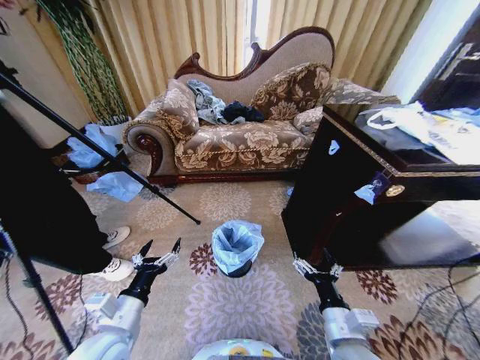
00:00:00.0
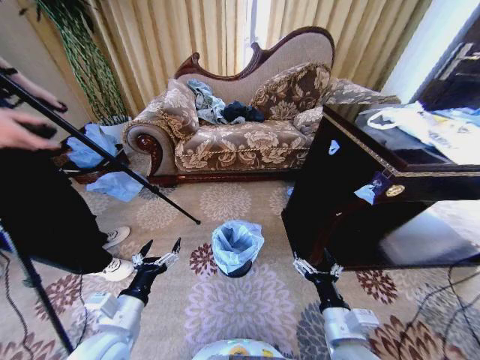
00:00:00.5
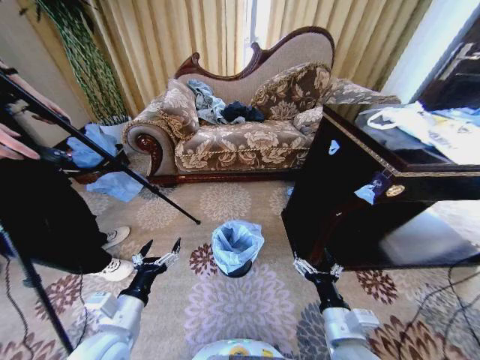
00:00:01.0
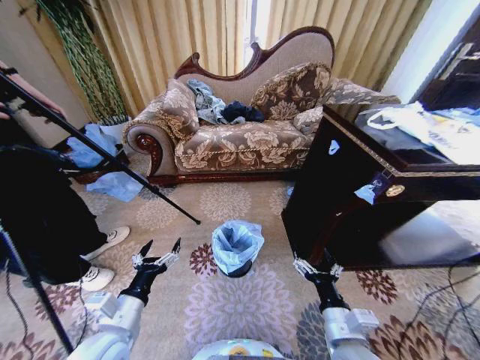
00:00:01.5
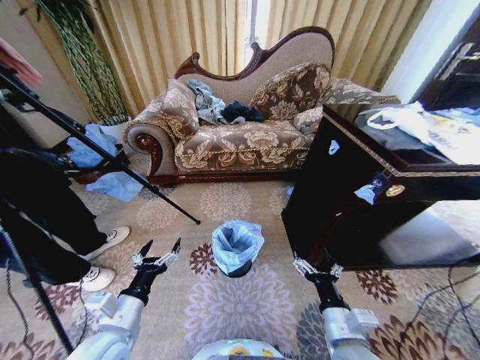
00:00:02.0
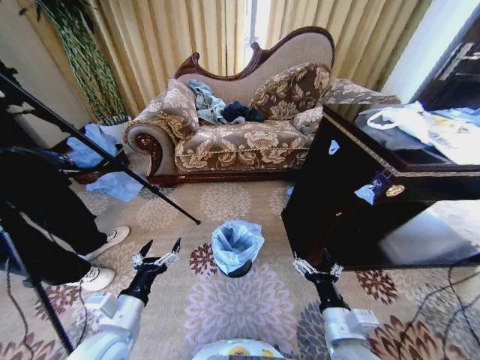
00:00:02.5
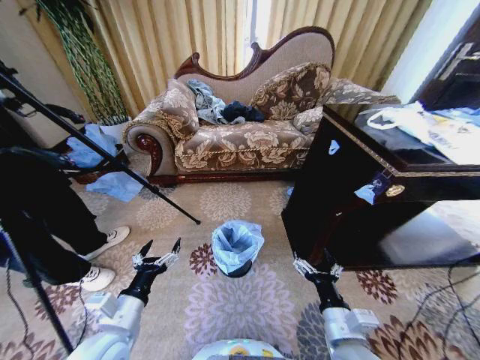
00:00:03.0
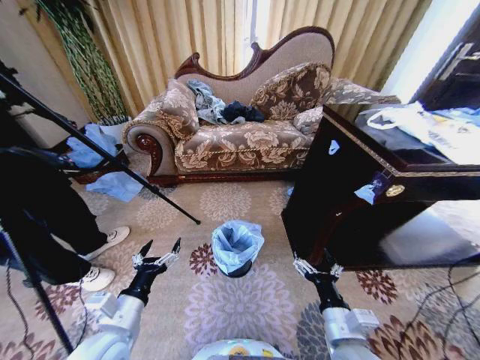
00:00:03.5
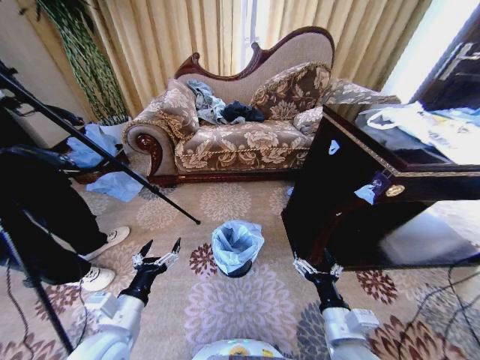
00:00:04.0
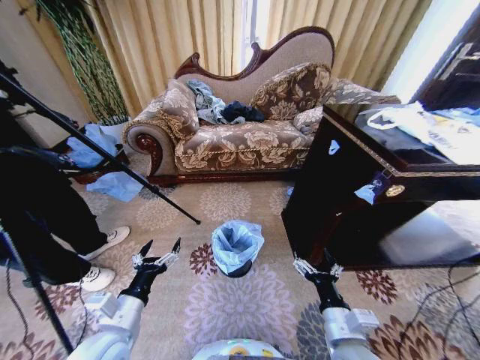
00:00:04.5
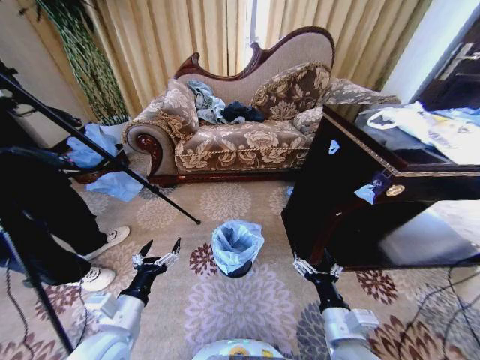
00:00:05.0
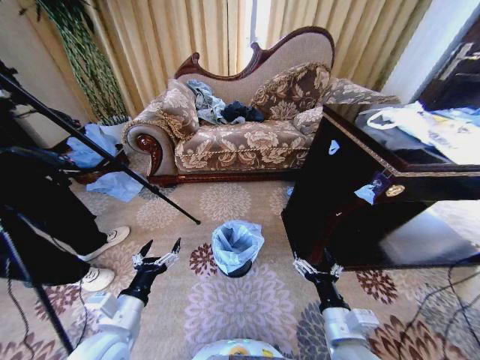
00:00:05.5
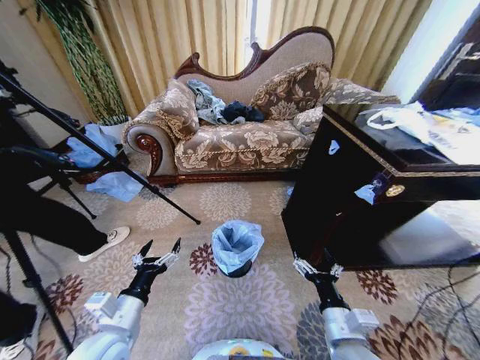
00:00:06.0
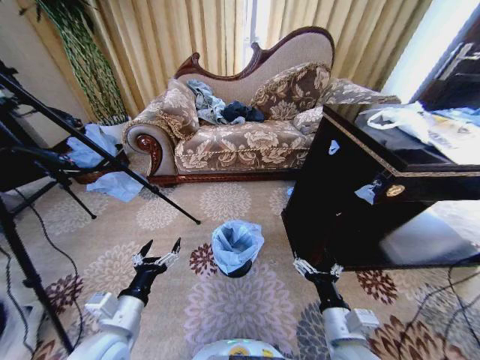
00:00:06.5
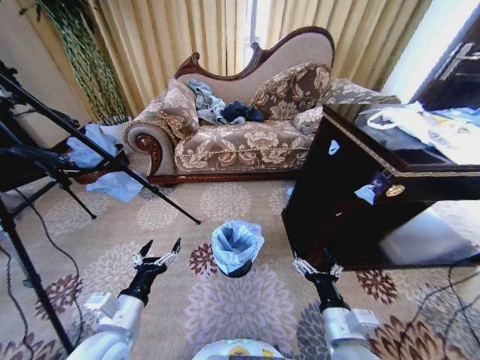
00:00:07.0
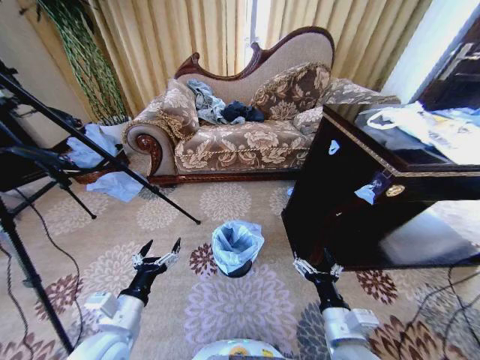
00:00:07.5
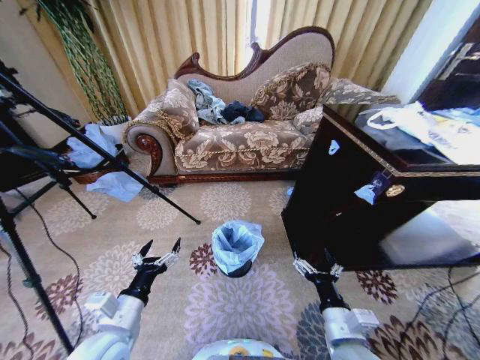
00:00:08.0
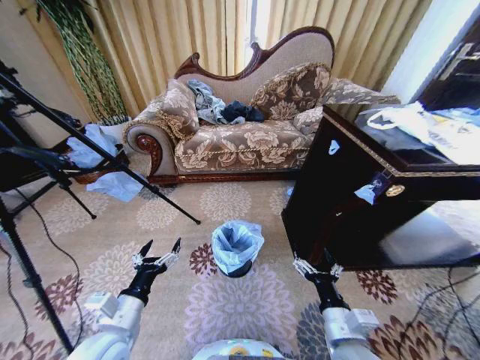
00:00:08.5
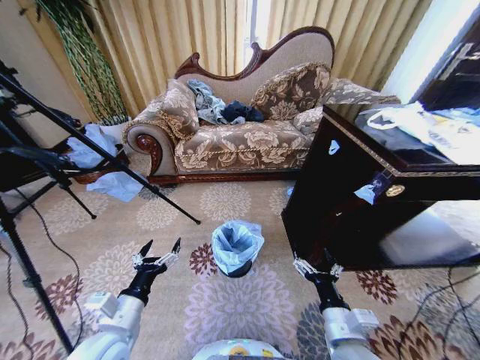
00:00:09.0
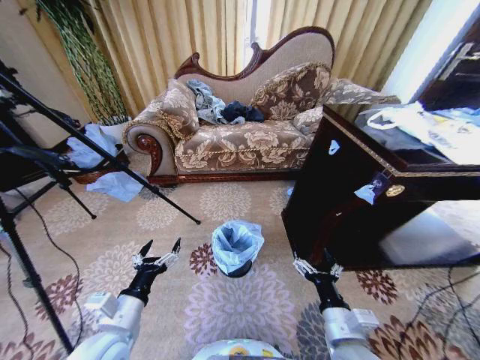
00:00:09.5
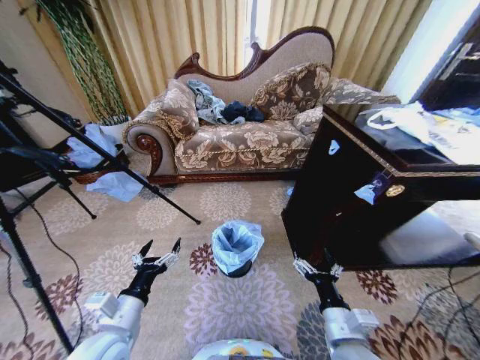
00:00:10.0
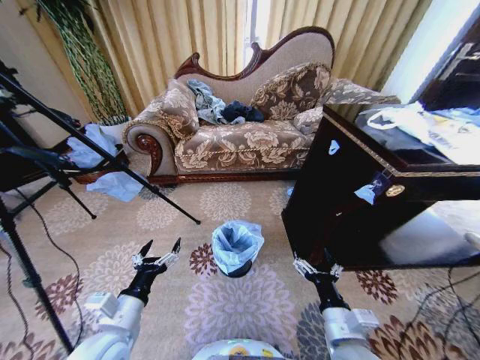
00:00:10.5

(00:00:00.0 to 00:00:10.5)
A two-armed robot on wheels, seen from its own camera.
Task of the whole recording: Place a garbage bag over the trash bin.
00:00:00.0 - 00:00:10.5: Both grippers stay put.
